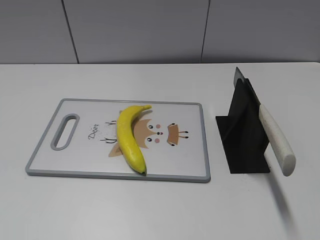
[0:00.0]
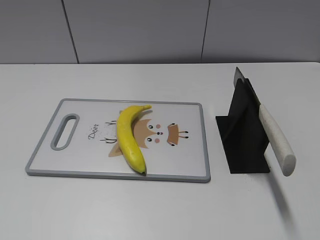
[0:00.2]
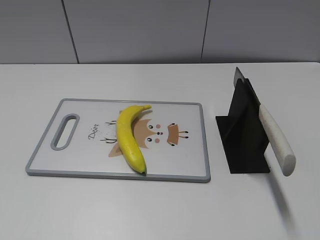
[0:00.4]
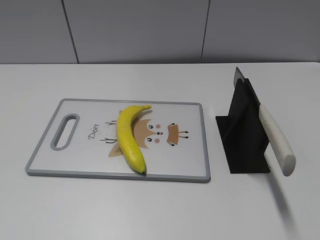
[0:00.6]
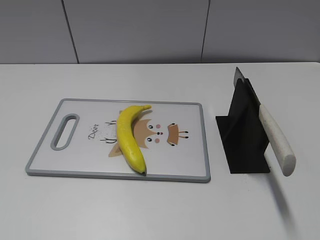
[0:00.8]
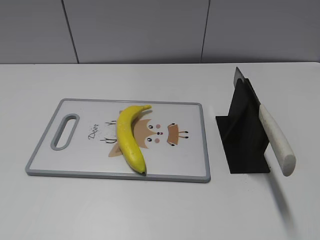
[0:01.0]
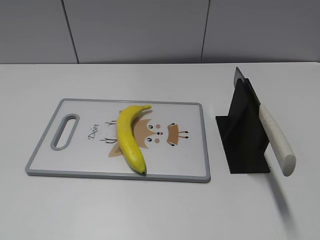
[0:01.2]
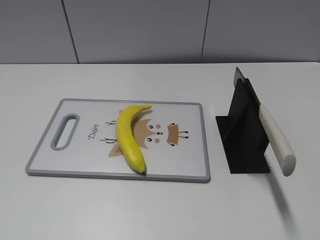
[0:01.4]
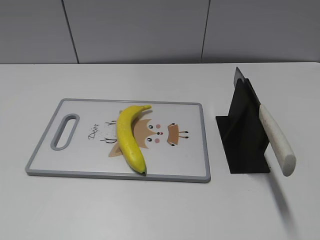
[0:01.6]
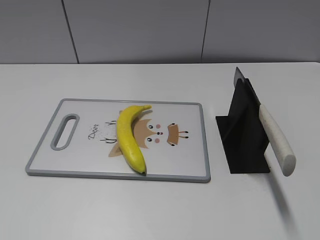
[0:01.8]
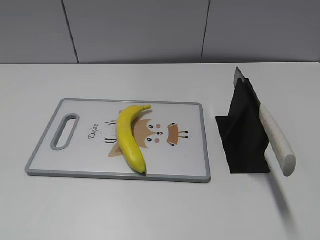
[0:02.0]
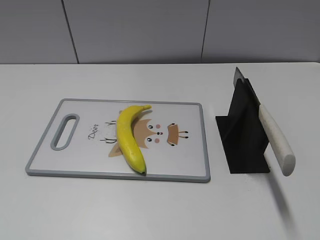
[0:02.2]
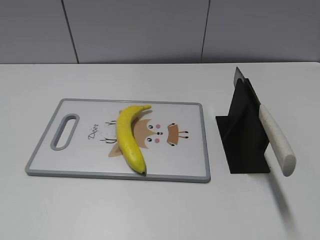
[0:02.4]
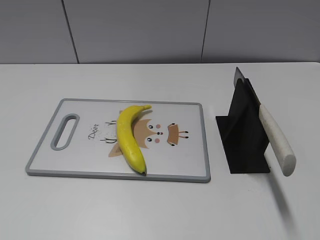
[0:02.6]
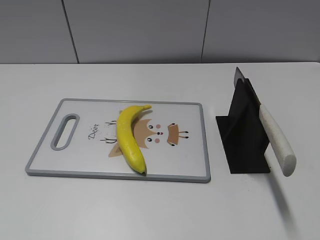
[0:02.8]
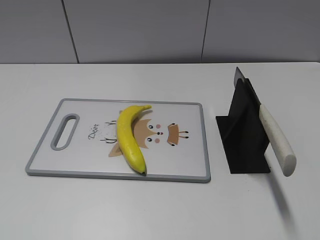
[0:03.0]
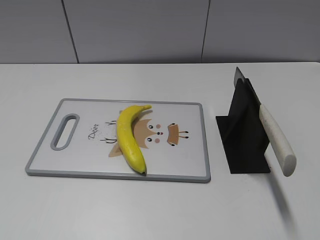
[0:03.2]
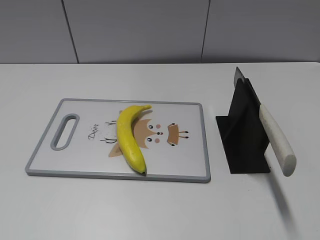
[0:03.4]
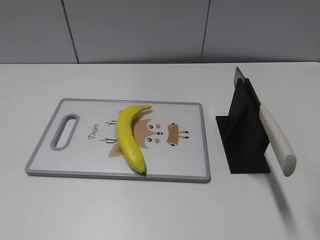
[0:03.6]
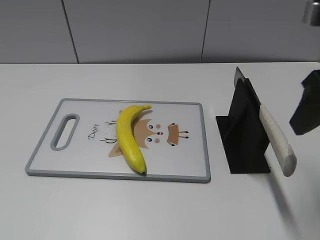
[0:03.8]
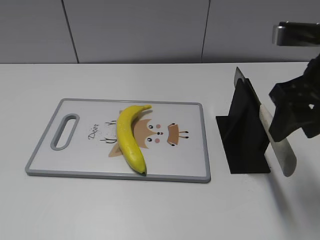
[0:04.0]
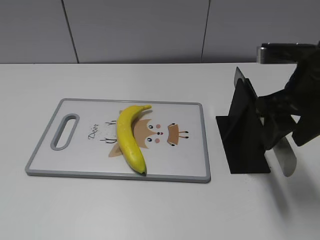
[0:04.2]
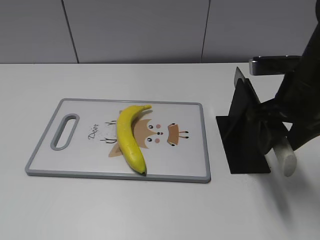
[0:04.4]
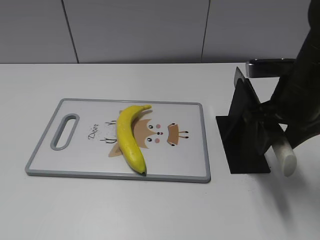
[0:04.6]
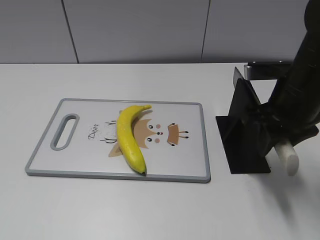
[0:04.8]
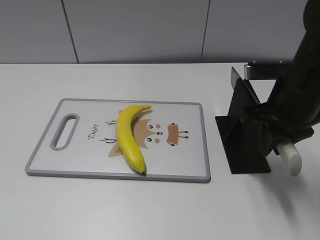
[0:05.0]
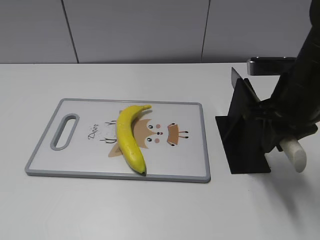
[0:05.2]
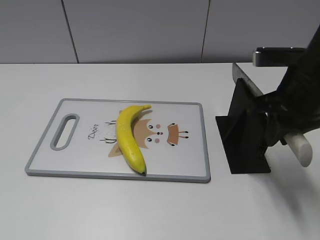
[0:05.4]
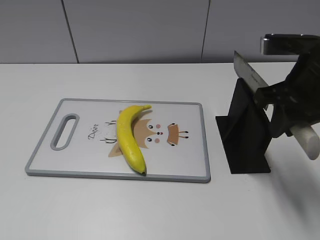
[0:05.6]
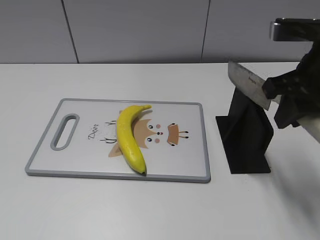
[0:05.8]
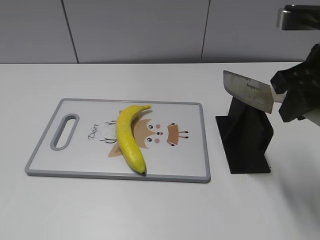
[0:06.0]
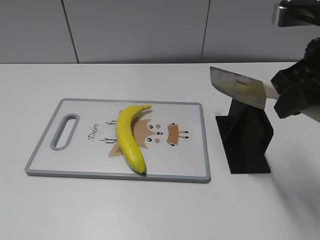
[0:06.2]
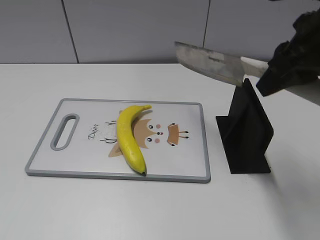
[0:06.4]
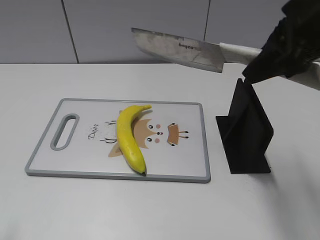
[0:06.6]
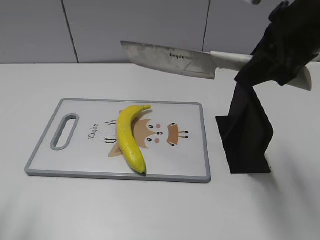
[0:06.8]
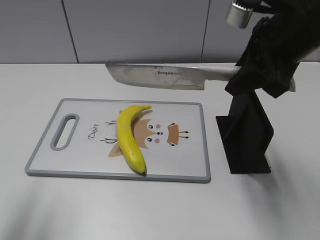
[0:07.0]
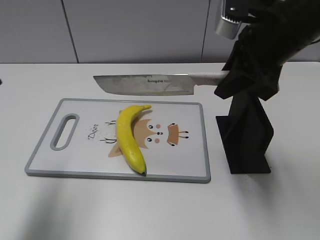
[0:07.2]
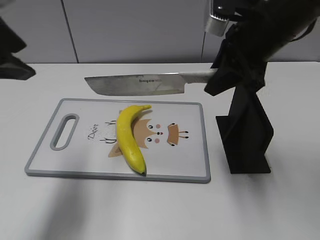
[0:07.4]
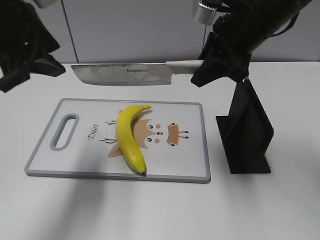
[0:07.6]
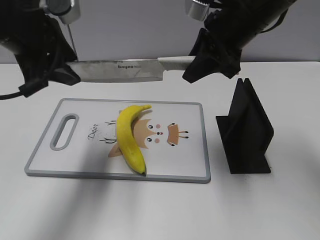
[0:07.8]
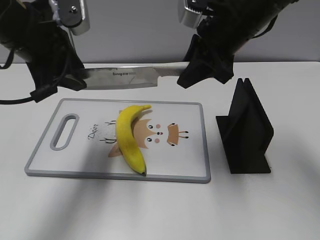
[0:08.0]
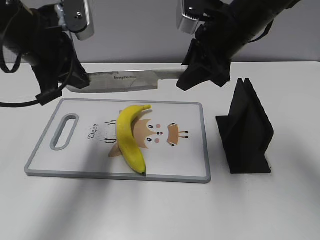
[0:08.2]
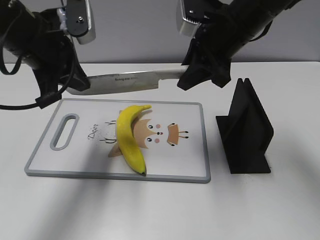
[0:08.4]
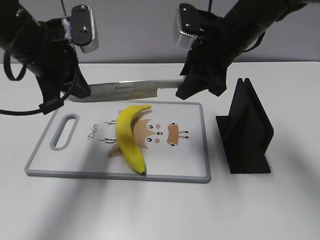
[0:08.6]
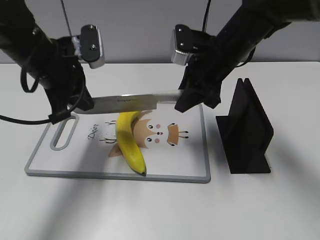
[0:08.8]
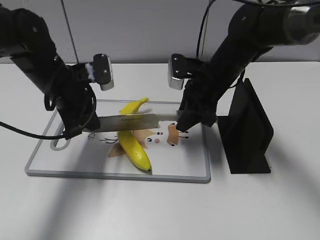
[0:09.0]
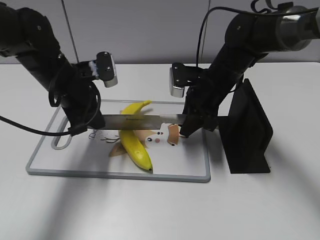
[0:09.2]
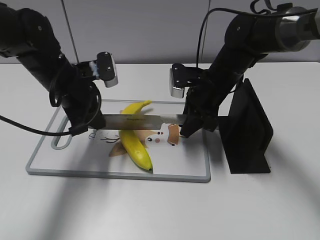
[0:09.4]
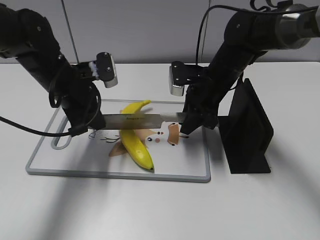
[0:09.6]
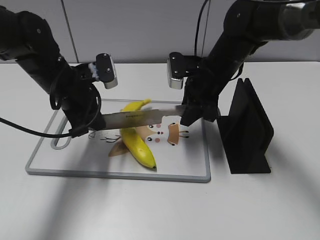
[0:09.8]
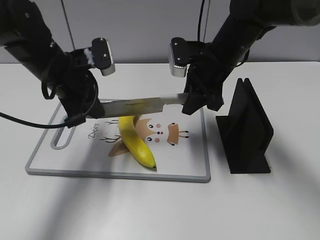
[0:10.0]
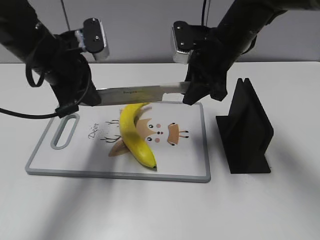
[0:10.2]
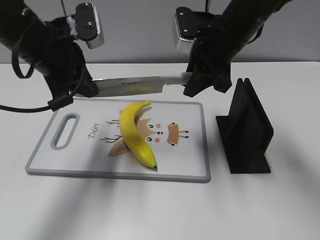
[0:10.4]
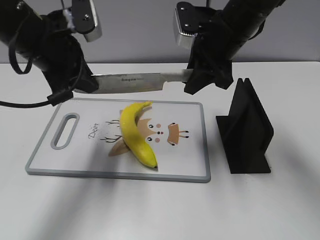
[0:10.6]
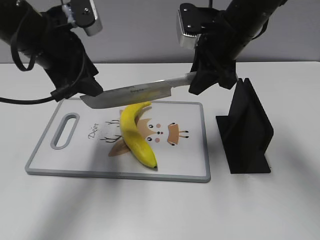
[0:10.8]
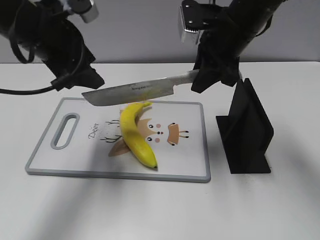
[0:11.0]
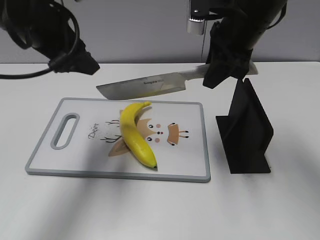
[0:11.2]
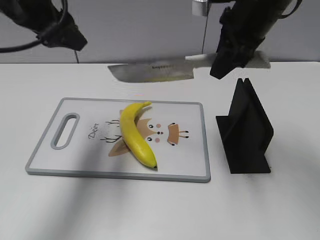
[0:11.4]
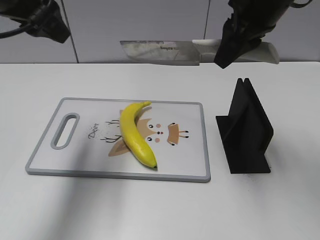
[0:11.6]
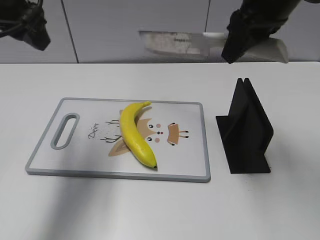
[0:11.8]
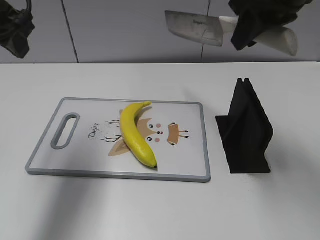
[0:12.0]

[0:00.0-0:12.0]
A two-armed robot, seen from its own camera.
Task of the whole recording: cut plastic banana.
Step, 0:00.0 to 0:06.2: Grab the knife handle with your right hand.
Step, 0:06.4 to 0:10.4: Lift the knife with your right hand.
0:03.0 to 0:04.4: The right gripper goes some 25 cm forward, downward and to the left.
0:04.4 to 0:06.0: The right gripper moves upward, roughly 5 cm, and closes.
0:06.0 to 0:07.6: The left gripper shifts about 30 cm forward and to the right, while the right gripper is displaced forward and to the left by about 10 cm.
0:07.6 to 0:09.0: The left gripper shifts approximately 15 cm downward and forward, and closes its fingers. The right gripper is displaced downward by some 15 cm.
0:09.0 to 0:10.4: The grippers both shift upward by some 10 cm.
0:10.4 to 0:12.0: The right gripper moves upward and backward, some 15 cm; the left gripper is displaced upward and to the left by roughly 10 cm, and opens up.

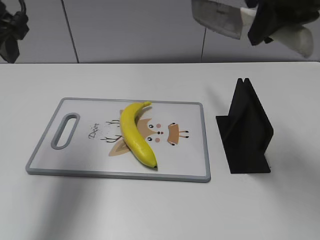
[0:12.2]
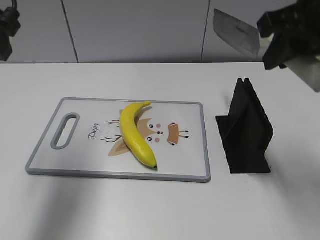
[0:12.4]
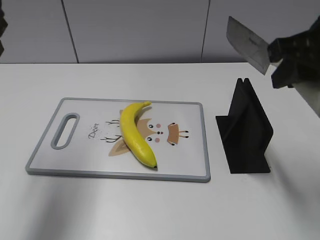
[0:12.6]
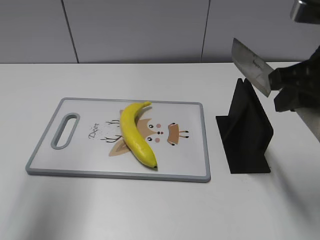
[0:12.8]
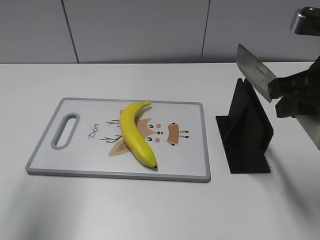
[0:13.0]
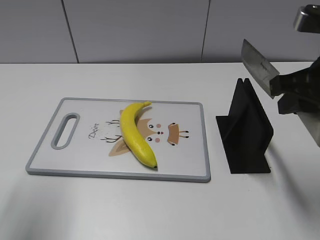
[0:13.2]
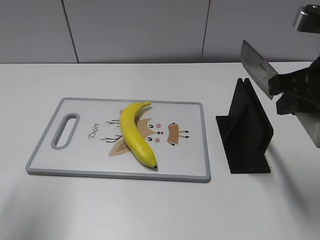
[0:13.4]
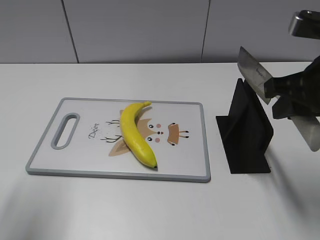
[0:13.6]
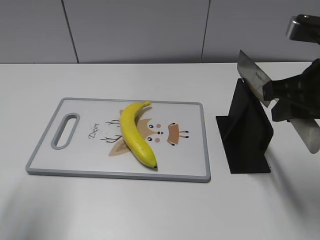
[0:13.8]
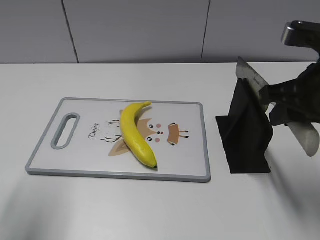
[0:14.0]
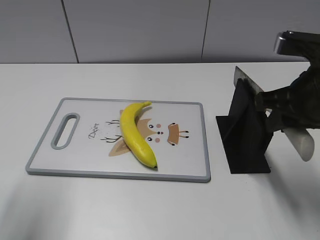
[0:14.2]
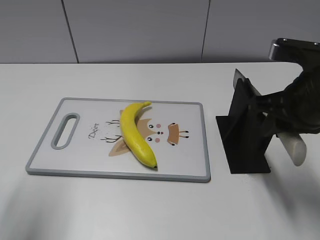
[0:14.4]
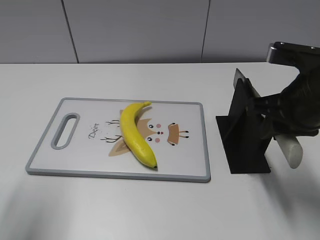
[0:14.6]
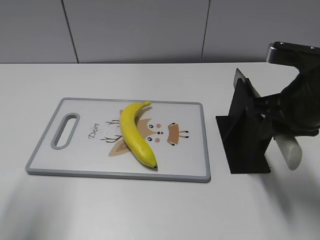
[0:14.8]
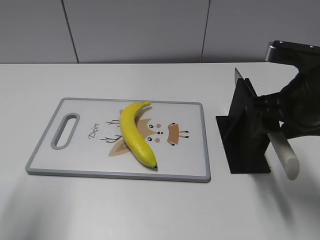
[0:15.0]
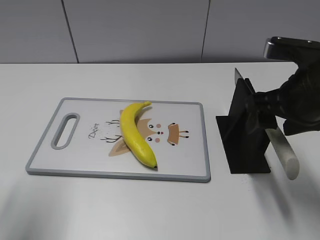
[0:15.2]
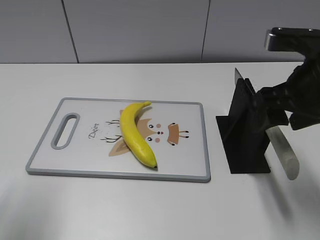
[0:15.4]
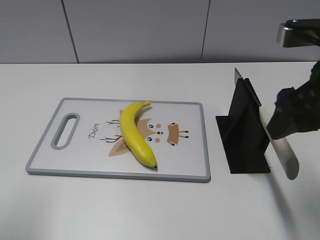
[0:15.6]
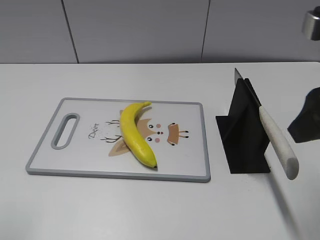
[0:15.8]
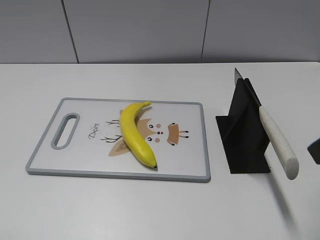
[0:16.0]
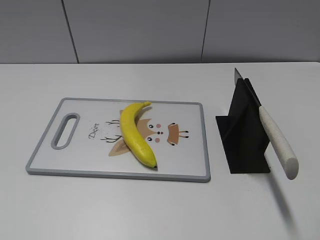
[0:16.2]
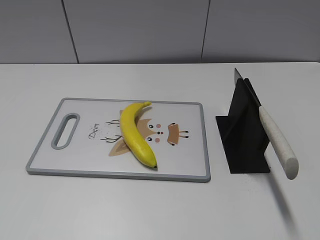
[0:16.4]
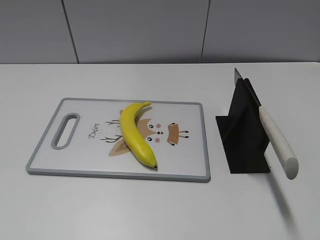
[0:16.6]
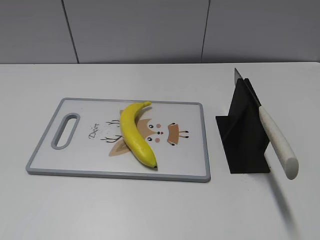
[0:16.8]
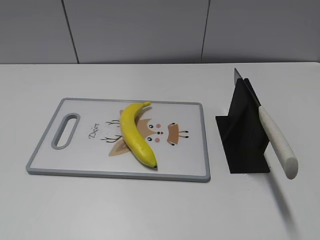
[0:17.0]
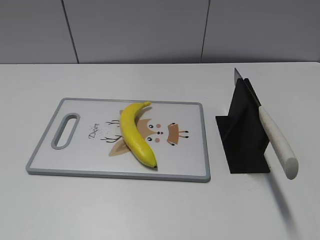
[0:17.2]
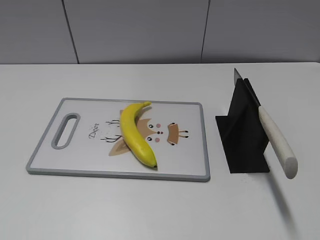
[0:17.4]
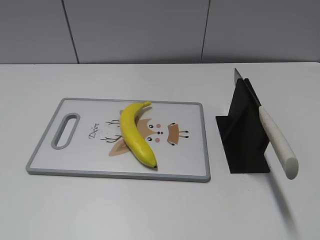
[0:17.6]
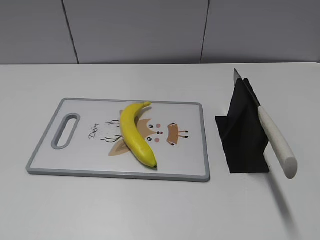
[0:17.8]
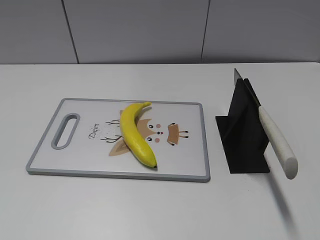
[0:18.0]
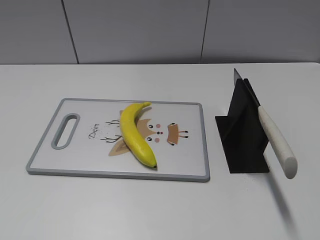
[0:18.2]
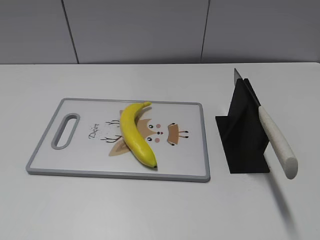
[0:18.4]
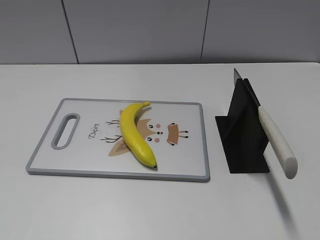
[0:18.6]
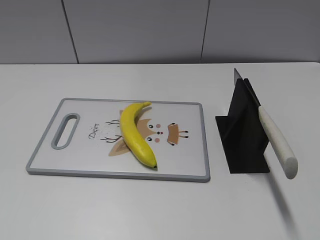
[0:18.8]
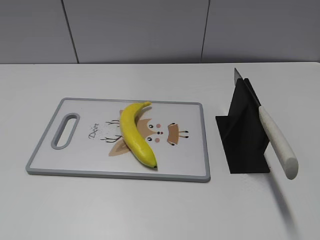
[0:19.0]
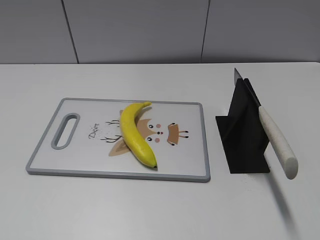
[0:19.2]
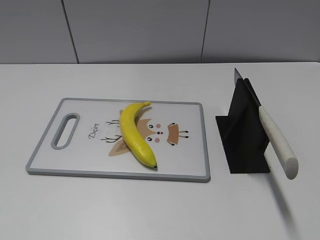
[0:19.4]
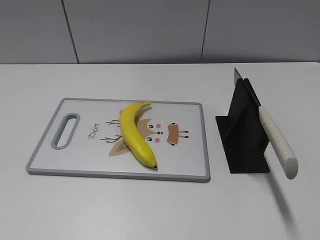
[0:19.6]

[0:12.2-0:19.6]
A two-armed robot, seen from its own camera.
Task of the whole recording: cut plastic banana.
Step, 0:12.4 to 0:13.0: Lift the knife with your right hand.
Step, 0:13.4 to 0:18.8: Place the knife on the storage rack with your right hand.
0:12.2 to 0:13.6: The right gripper shifts roughly 10 cm downward and backward, while the left gripper goes about 10 cm backward.
0:13.6 to 0:15.2: The right gripper opens.
0:15.2 to 0:16.6: The grippers both shift backward by approximately 15 cm.
0:16.6 to 0:18.2: The right gripper moves backward, some 10 cm.

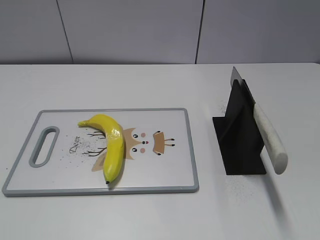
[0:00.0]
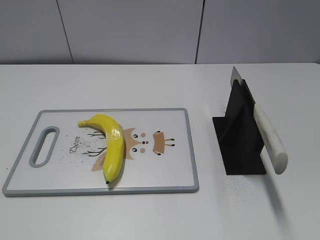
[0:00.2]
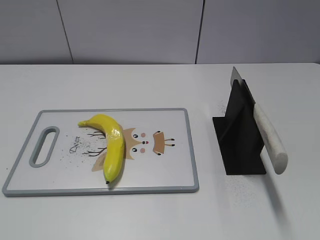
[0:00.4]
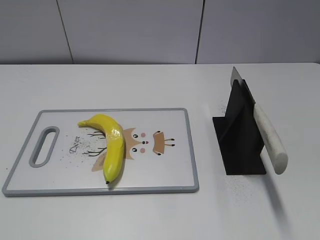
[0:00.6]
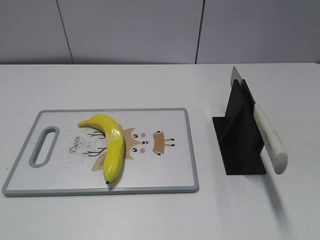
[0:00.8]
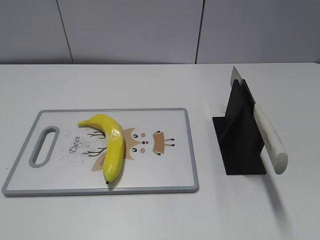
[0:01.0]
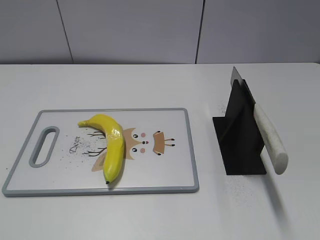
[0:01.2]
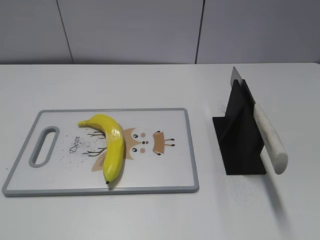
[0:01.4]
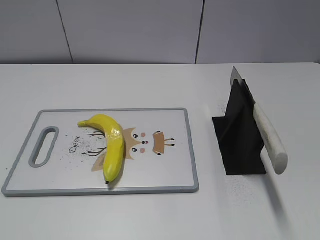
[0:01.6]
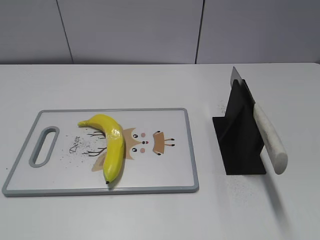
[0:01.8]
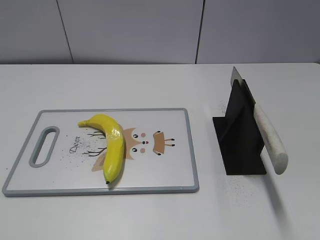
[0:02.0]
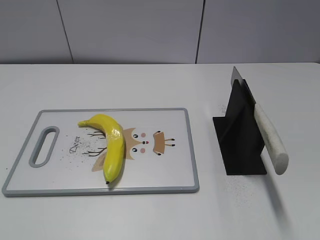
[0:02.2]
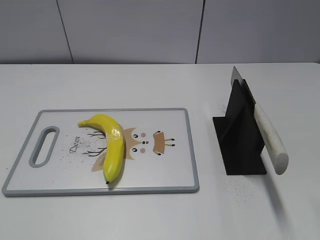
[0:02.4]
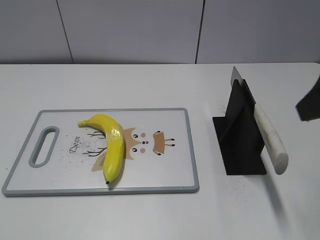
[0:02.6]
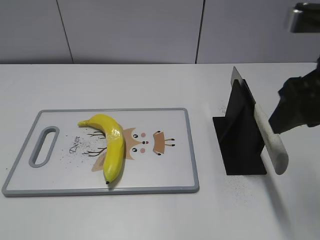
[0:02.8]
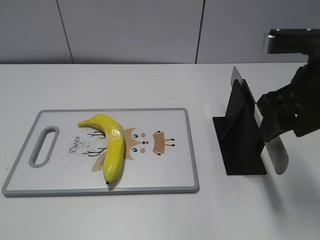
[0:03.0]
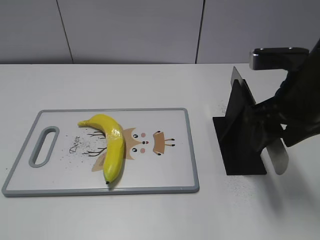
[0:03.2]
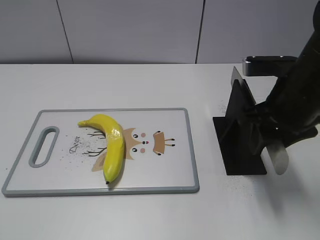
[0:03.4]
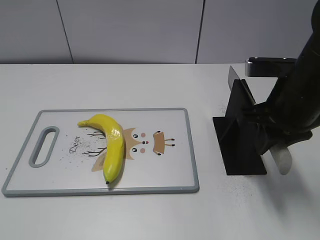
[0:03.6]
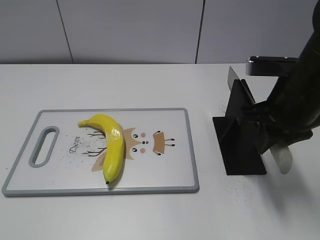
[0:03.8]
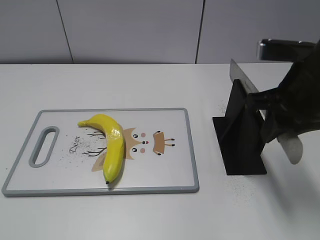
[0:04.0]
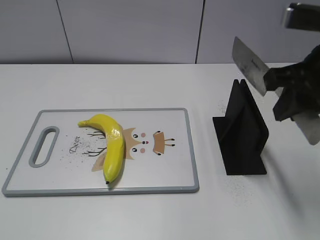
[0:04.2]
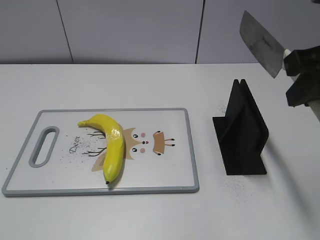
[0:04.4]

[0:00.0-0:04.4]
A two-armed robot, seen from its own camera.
Task of the whole recording: cut plastic banana.
0:01.4 to 0:03.0: The right gripper goes some 25 cm forward and to the left.
0:03.0 to 0:04.4: The right gripper ends up some 5 cm from where it was, and closes up.
